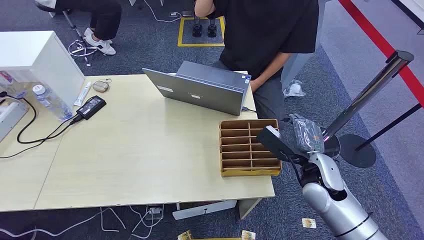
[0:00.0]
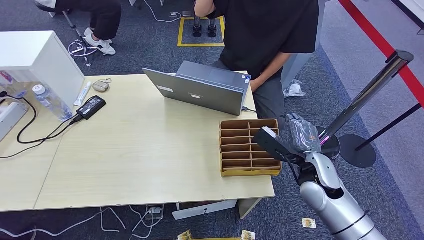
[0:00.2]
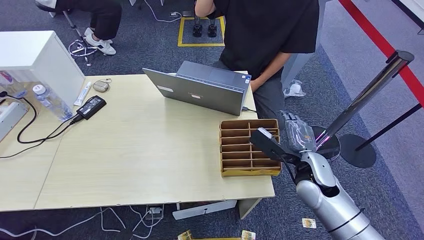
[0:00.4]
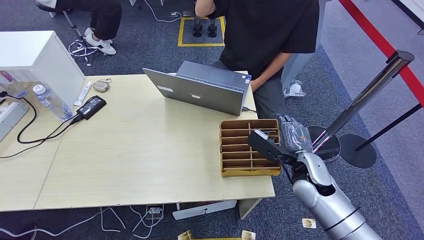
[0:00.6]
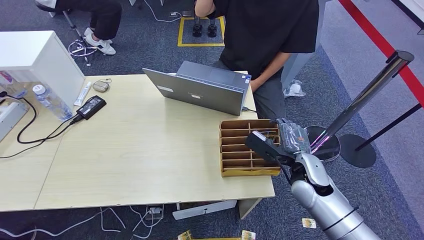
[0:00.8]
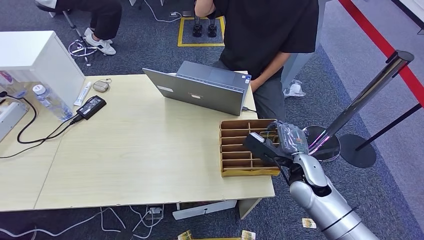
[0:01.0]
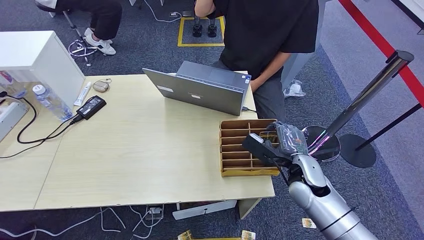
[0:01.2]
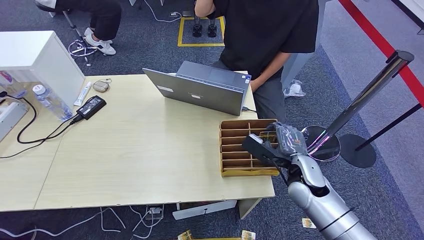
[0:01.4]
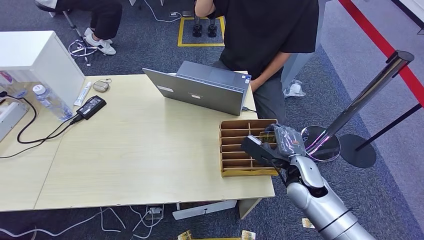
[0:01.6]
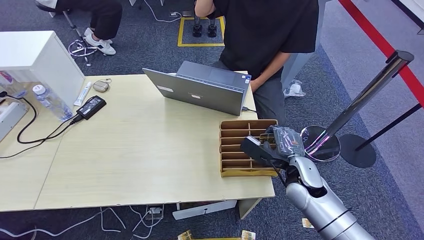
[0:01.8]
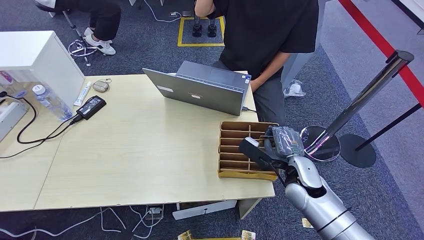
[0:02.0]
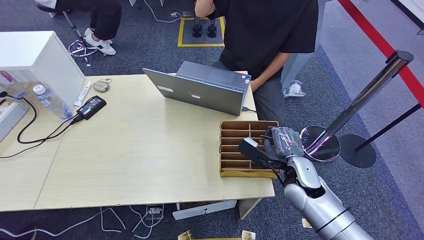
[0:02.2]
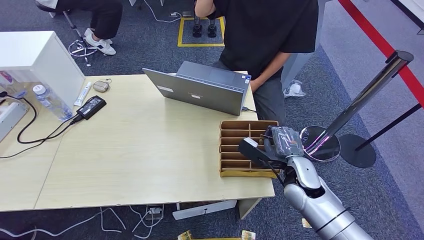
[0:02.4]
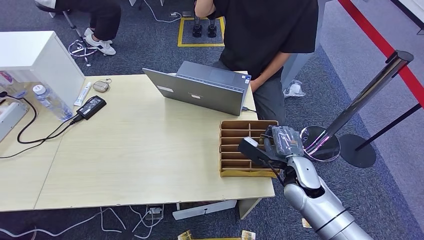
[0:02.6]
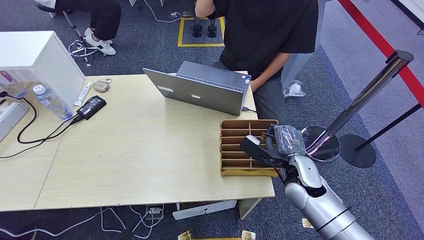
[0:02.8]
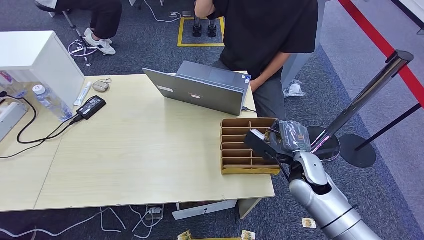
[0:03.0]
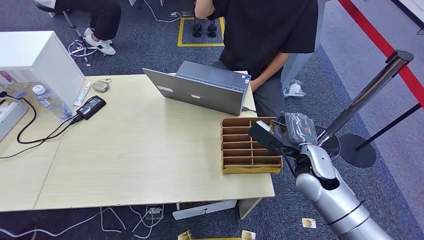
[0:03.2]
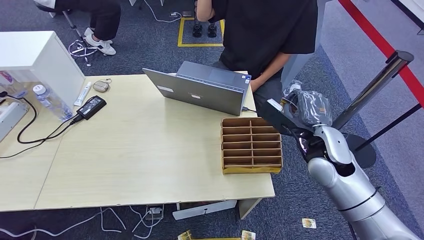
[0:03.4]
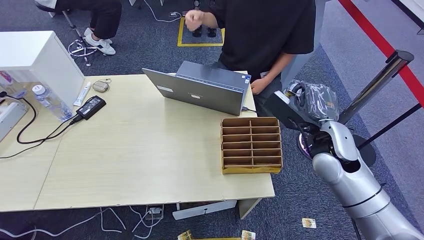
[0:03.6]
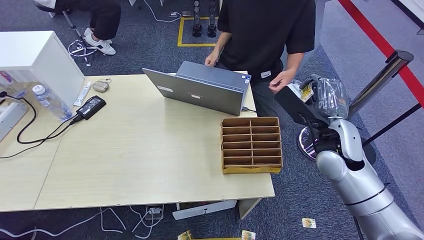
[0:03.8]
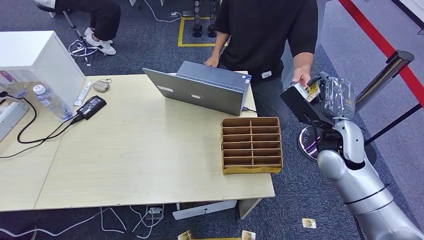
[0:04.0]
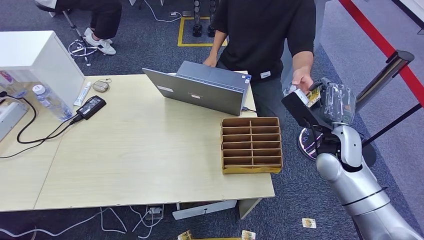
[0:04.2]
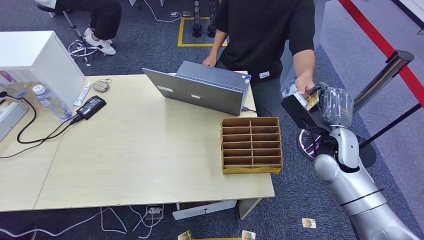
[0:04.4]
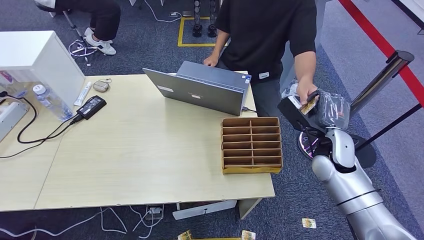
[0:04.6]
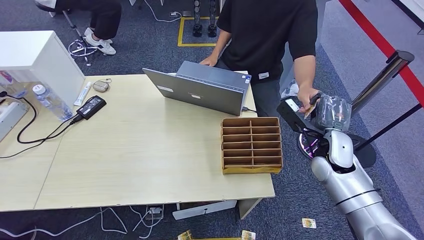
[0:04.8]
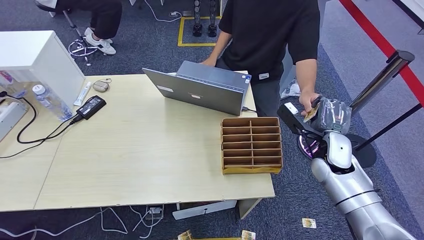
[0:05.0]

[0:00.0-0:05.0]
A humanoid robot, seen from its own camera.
Step, 0:00.0 to 0:03.4: Pick up the room card from the card holder.
Step, 0:03.6 to 0:05.0: Hand the room card to the target.
0:01.6 to 0:03.4: The right hand moves upward, some 10 cm.
0:03.4 to 0:05.0: The right hand moves downward and to the right, some 5 cm.
